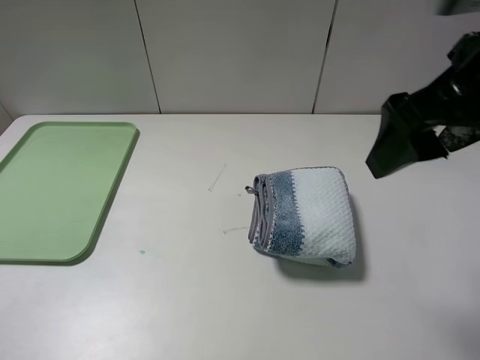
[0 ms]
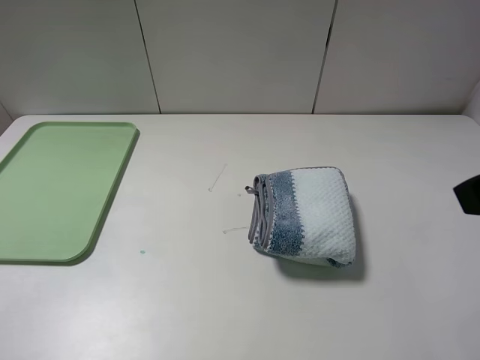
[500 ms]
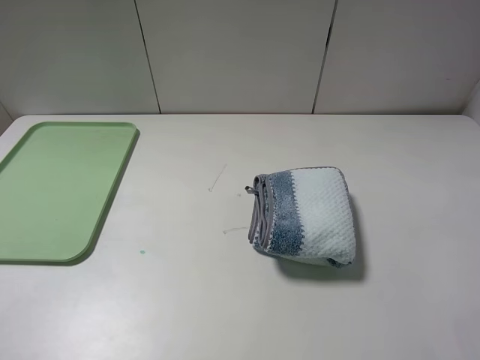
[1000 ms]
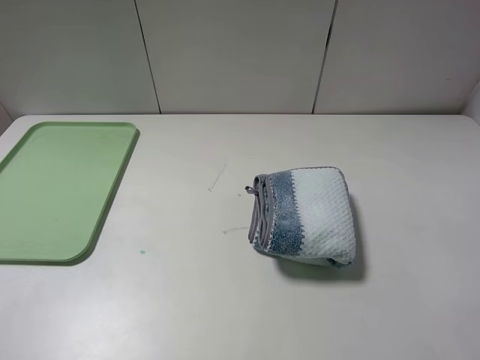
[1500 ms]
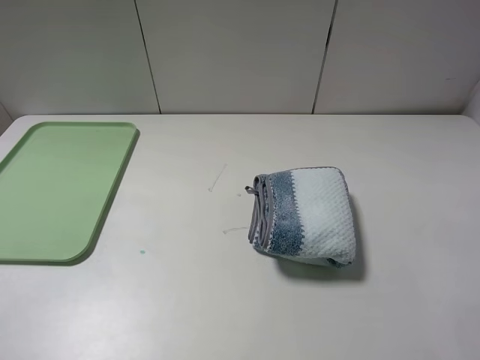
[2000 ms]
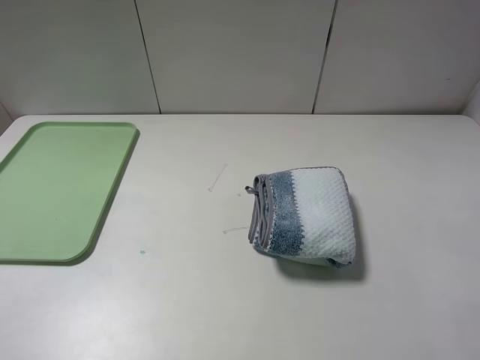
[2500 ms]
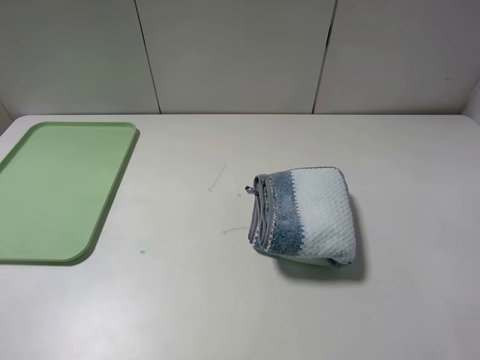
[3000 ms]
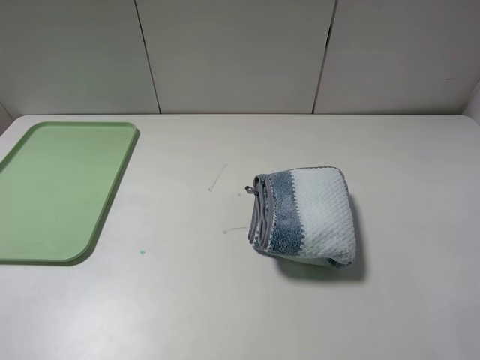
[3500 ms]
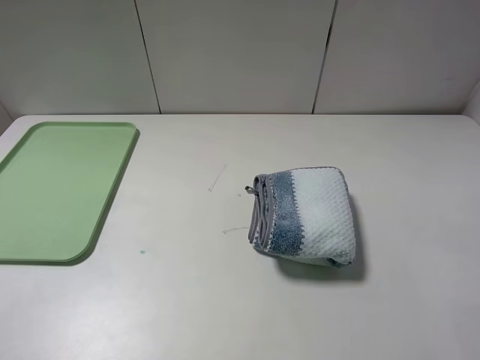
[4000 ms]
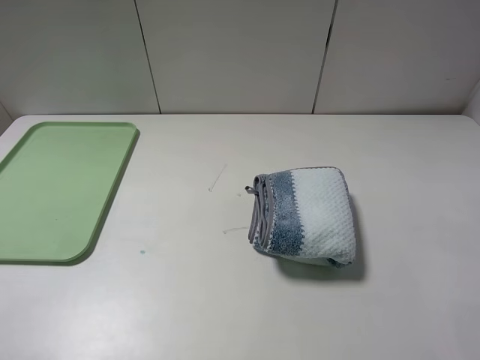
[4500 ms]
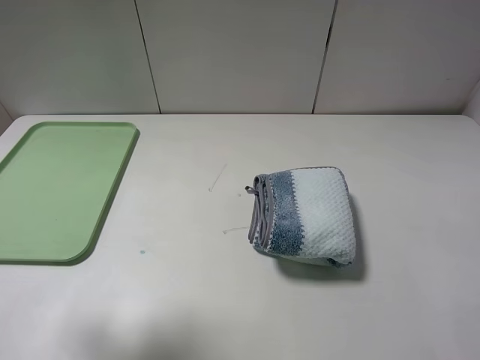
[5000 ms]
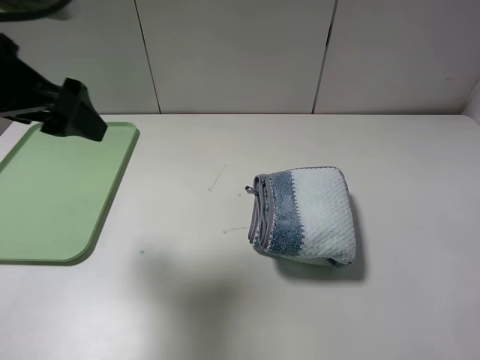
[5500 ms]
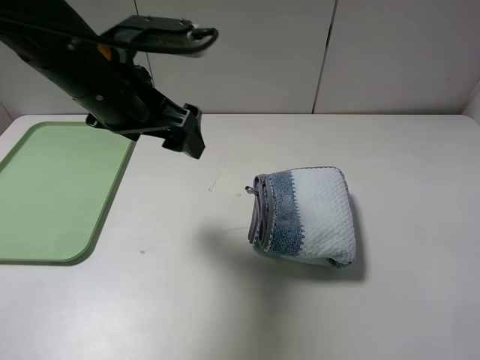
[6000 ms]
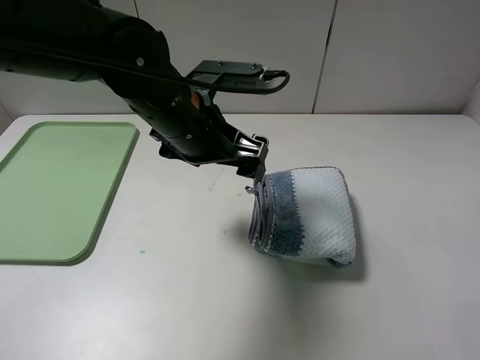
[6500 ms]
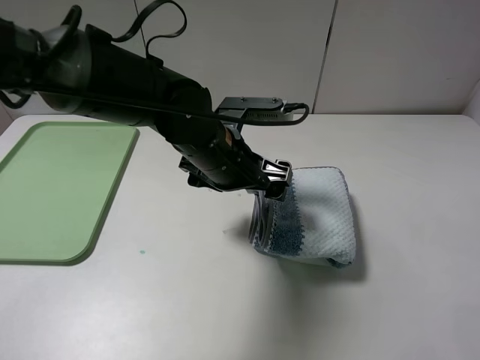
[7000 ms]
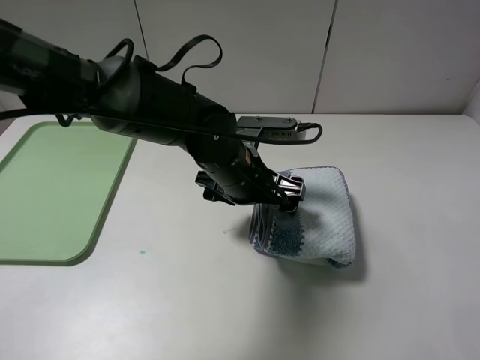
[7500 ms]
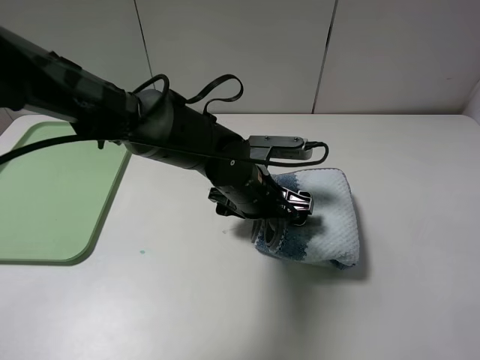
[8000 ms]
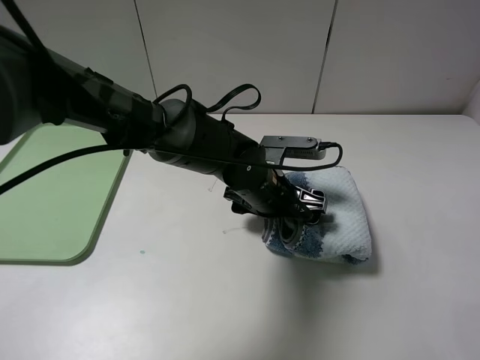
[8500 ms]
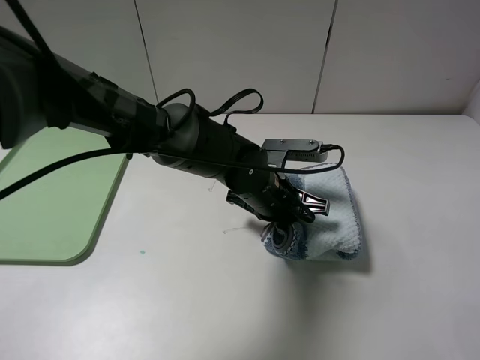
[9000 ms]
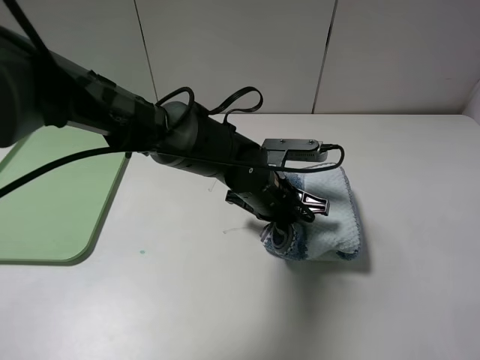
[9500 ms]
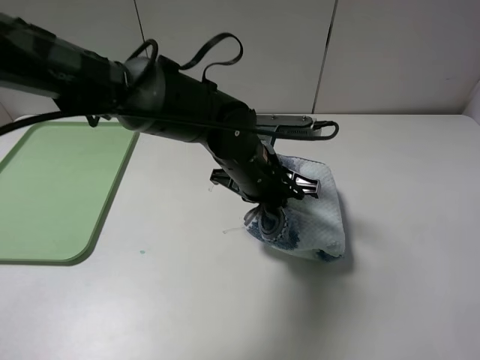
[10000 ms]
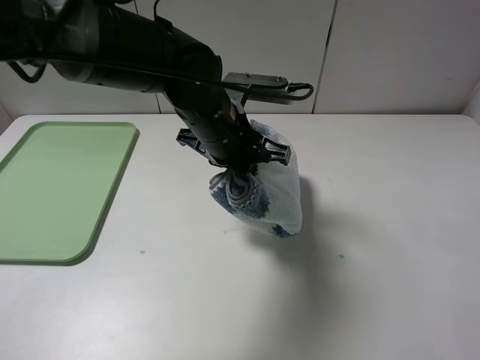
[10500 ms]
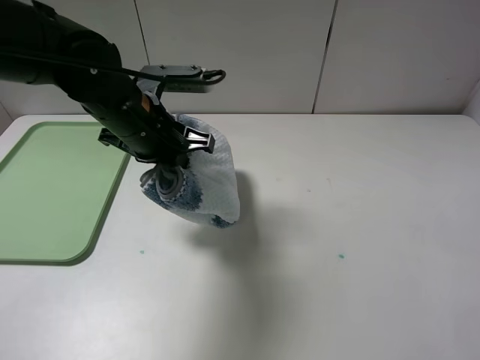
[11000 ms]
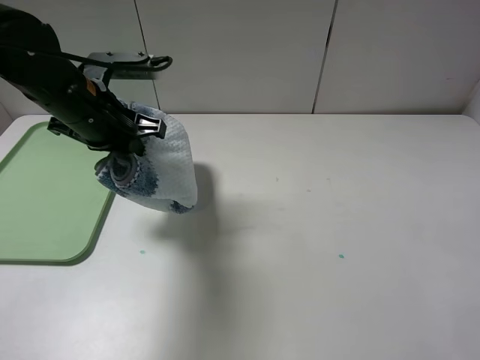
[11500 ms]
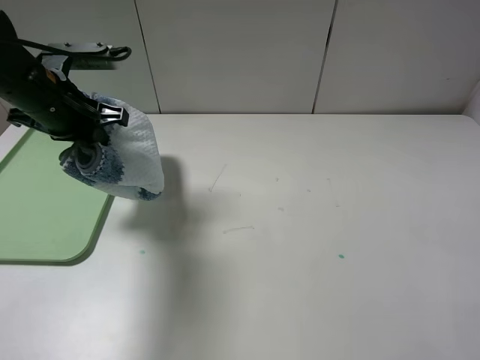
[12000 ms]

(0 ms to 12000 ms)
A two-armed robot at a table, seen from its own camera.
Step, 0 ms - 9000 ms: Grasp the blue white towel with the left gripper.
0 ms - 2000 ms: The right gripper shifts about 20 cm backward and to the right.
2000 ms - 4000 ms: The two grippers keep their place.
4000 ms - 6000 ms: The left gripper moves forward and to the right, about 35 cm.
6000 ms - 8000 ms: The left gripper heads downward and to the right, covering about 20 cm.
8000 ms - 10000 ms: The left gripper closes up.
10000 ms - 12000 ms: The left gripper is displaced to the left by approximately 25 cm.

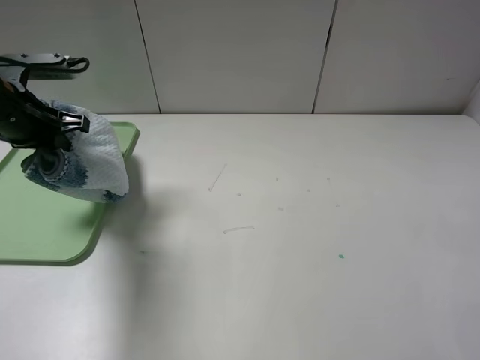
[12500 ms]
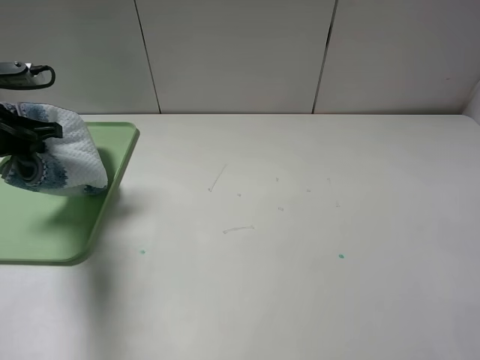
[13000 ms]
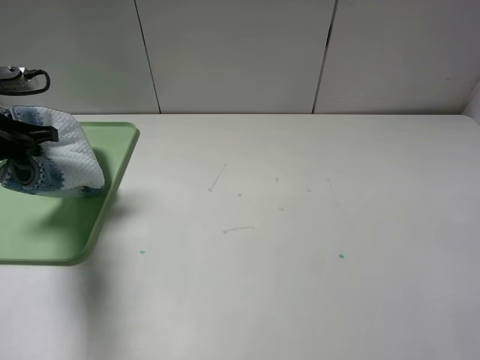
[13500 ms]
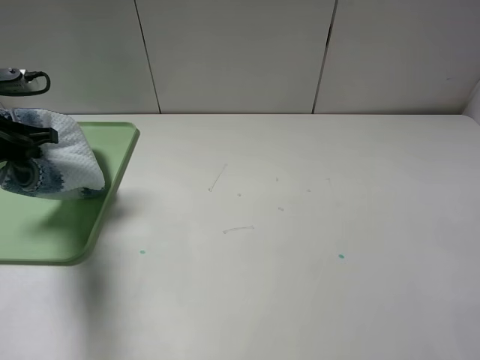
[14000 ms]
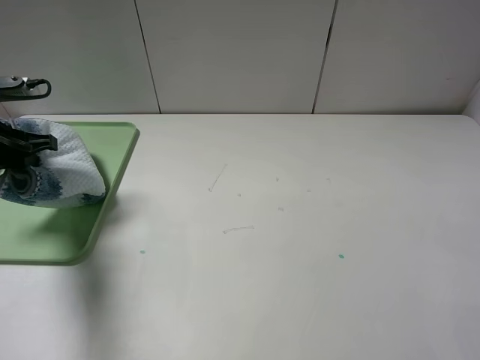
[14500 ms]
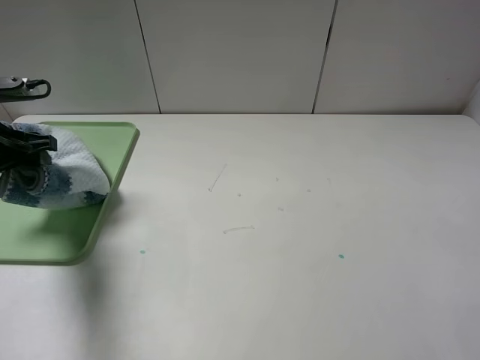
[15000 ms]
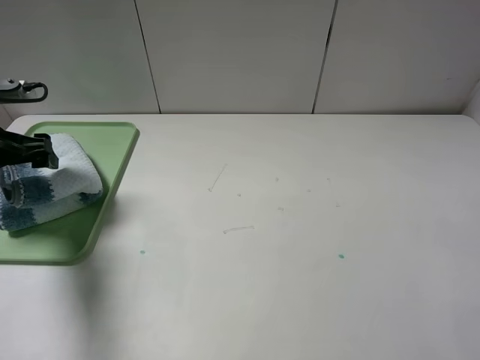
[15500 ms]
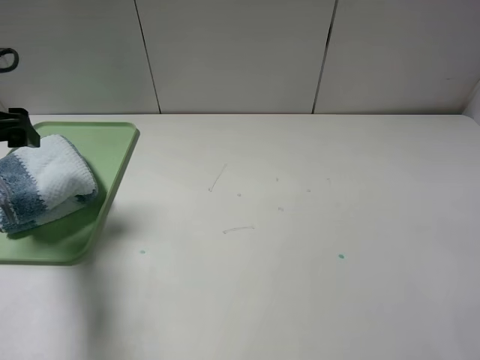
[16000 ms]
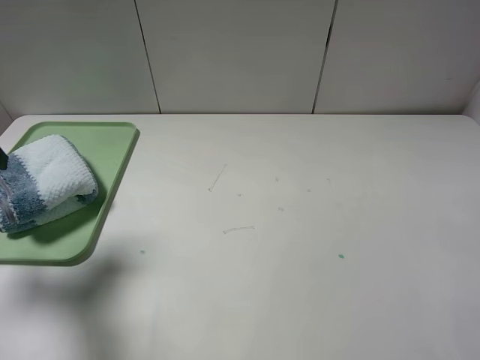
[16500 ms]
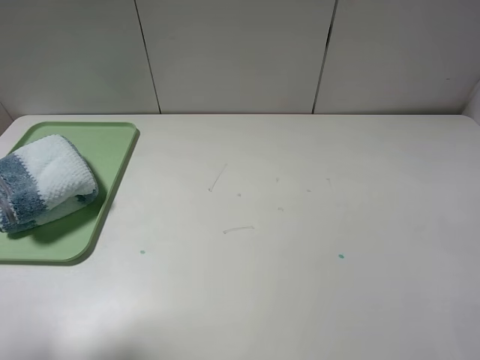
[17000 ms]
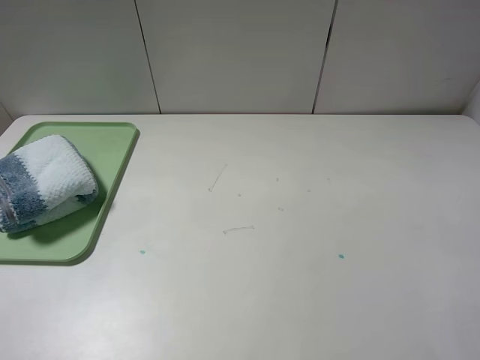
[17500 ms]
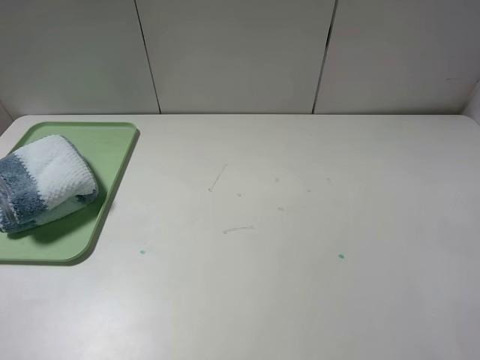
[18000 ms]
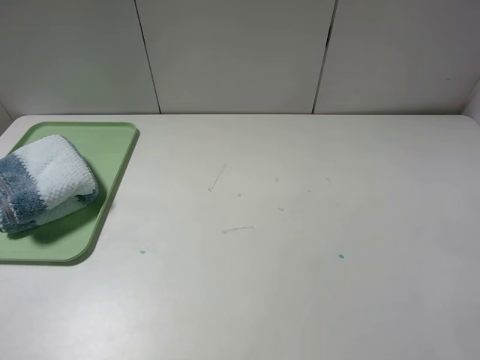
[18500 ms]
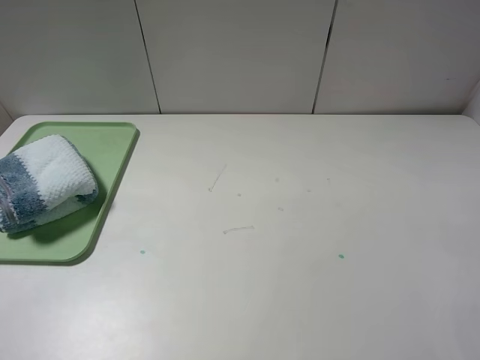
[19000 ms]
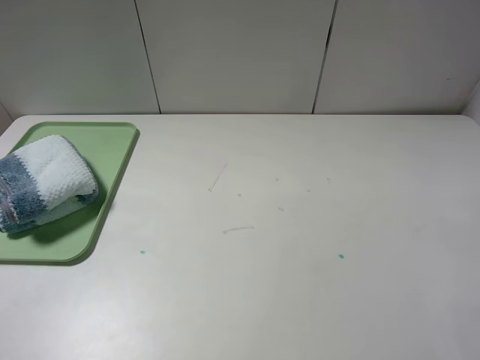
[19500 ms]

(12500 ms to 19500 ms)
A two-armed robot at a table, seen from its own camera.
12500 ms - 14500 ms: The left gripper changes place by some 5 cm.
14500 ms - 16000 ms: The left gripper goes approximately 5 cm upward, and opens up.
16000 ms - 17500 ms: The left gripper travels backward and upward by roughly 25 cm.
